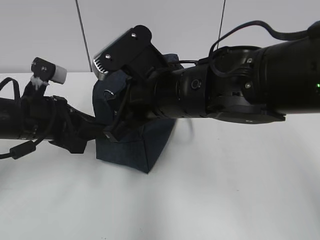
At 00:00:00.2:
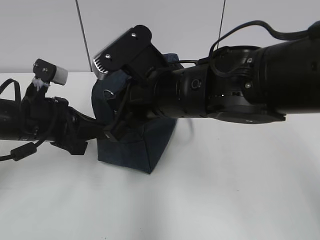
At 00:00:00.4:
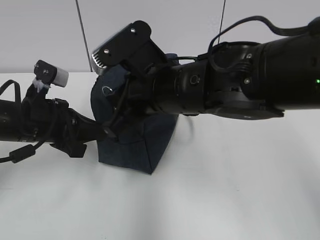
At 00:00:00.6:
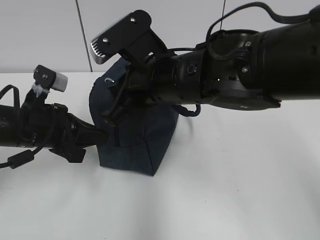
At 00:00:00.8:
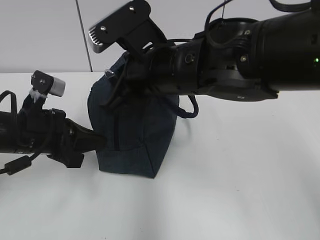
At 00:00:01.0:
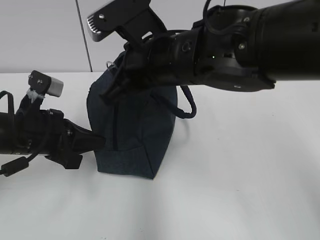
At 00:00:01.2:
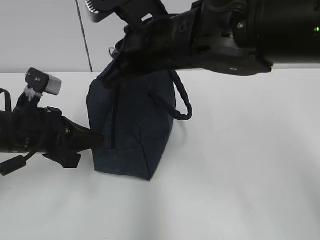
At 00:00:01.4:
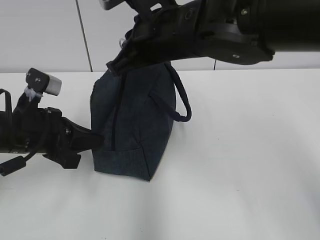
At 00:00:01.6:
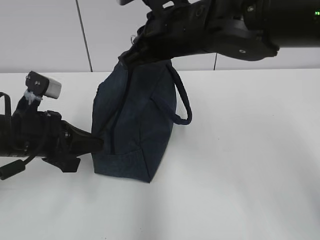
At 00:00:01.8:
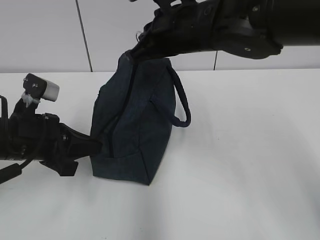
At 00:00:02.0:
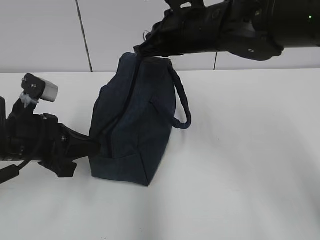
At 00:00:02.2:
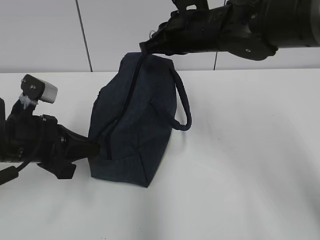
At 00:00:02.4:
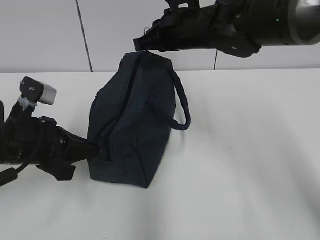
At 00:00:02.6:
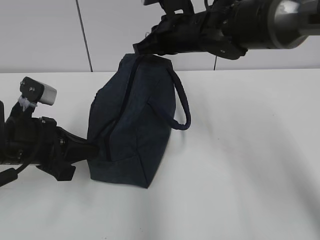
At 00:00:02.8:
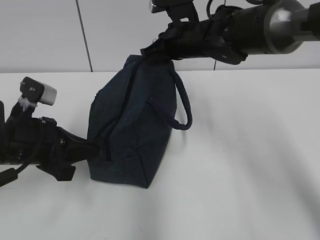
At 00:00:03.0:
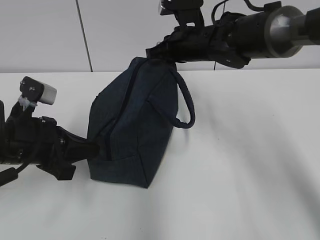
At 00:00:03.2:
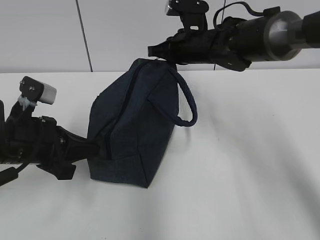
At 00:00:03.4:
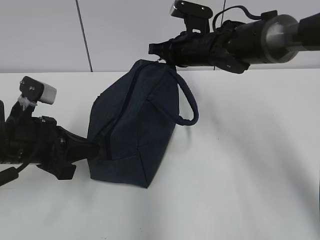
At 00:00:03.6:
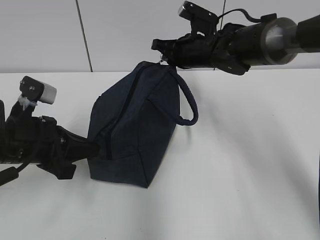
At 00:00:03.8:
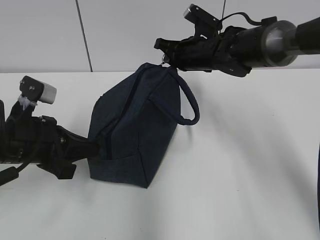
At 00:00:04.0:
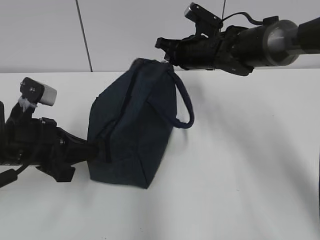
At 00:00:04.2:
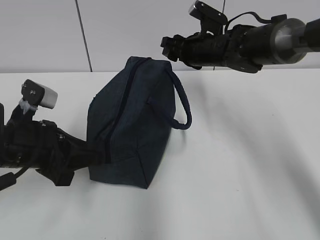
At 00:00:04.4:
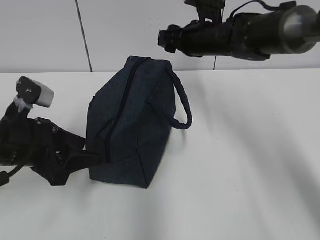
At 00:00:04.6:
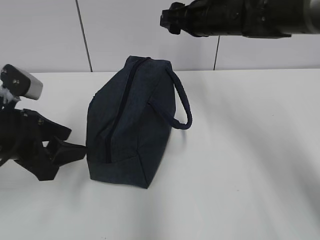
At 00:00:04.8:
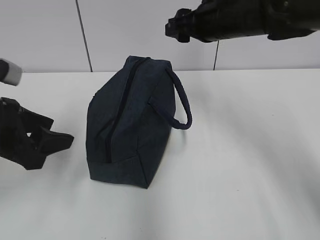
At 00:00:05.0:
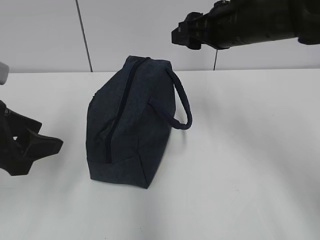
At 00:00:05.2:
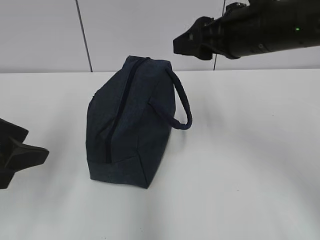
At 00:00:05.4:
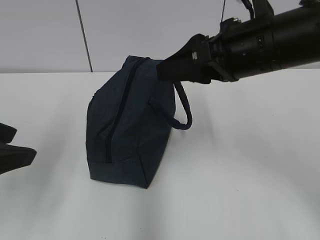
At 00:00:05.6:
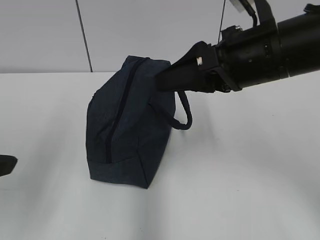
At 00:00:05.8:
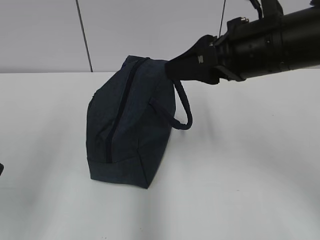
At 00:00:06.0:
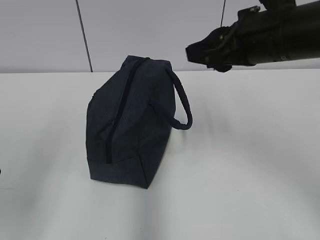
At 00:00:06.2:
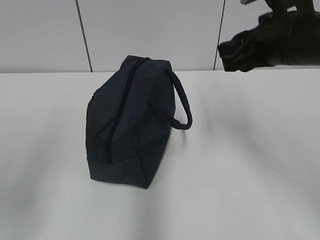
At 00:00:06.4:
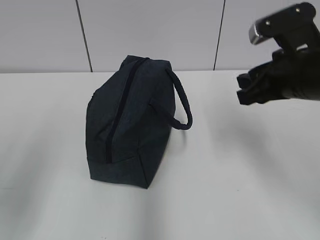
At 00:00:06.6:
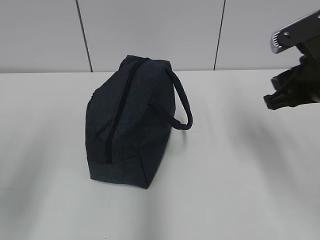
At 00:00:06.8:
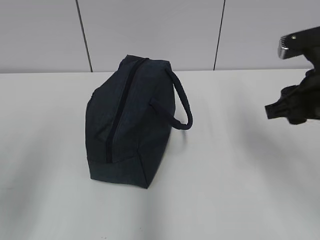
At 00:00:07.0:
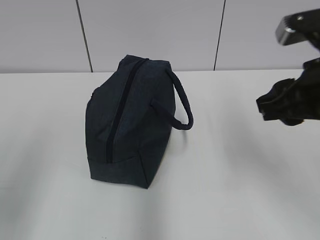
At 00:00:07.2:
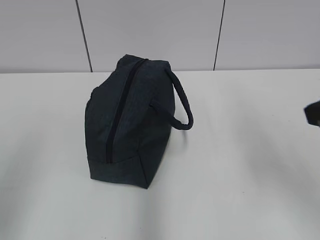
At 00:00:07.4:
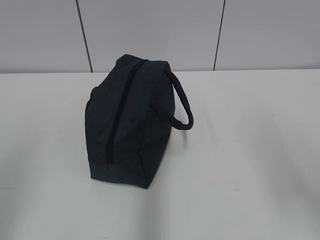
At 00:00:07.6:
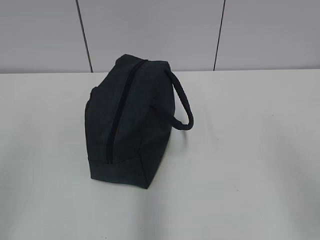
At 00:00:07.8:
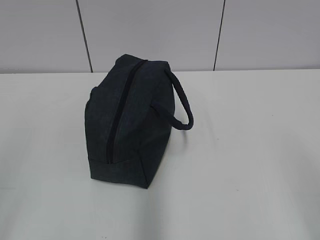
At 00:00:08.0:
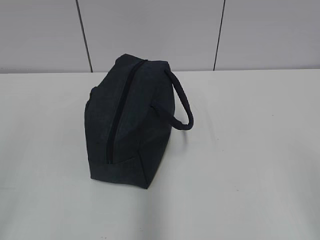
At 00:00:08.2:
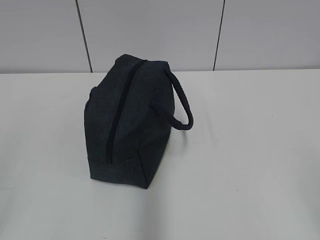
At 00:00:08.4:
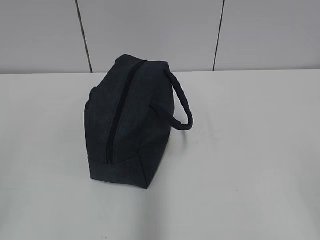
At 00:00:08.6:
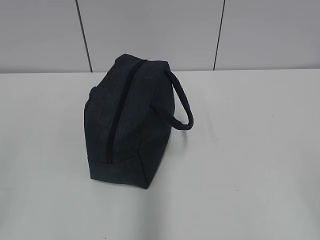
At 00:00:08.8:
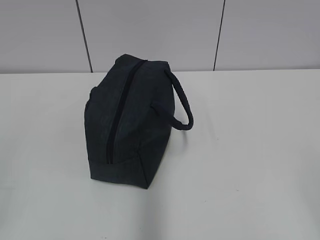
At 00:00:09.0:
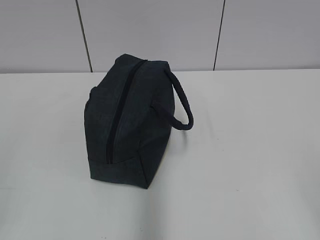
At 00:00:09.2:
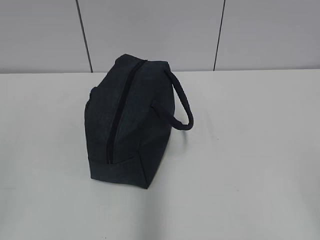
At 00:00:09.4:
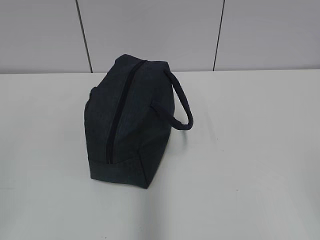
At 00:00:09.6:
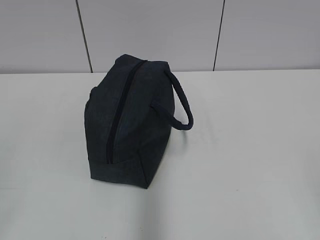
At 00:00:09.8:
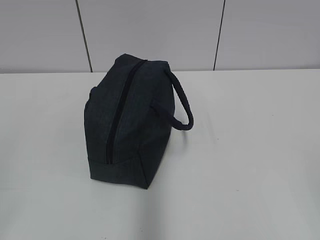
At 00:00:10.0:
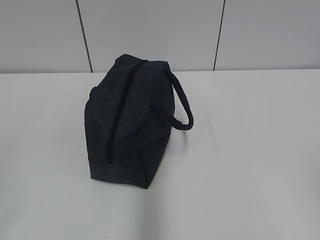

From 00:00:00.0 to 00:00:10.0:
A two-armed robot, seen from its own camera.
Step, from 00:00:00.8 to 00:00:03.0: Pull the zipper with your right hand.
From 00:00:00.0 to 00:00:01.4: The left gripper closes its fingers. The right gripper goes about 5 cm upward.
From 00:00:01.4 to 00:00:02.8: The right gripper travels forward, downward and to the right by some 15 cm.
From 00:00:02.8 to 00:00:04.2: The right gripper changes place by about 5 cm, and opens its fingers. The left gripper opens up.
From 00:00:04.2 to 00:00:05.8: The right gripper shifts roughly 25 cm backward and upward; the left gripper shifts approximately 20 cm backward, upward and to the left, and opens its fingers.
From 00:00:05.8 to 00:00:07.2: The right gripper is displaced backward and to the right by about 15 cm; the left gripper shifts by some 5 cm.
From 00:00:07.2 to 00:00:08.6: The right gripper travels backward by approximately 20 cm. Meanwhile the left gripper shifts some 10 cm backward.
